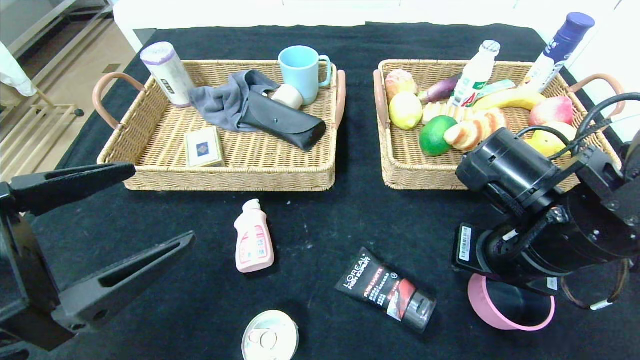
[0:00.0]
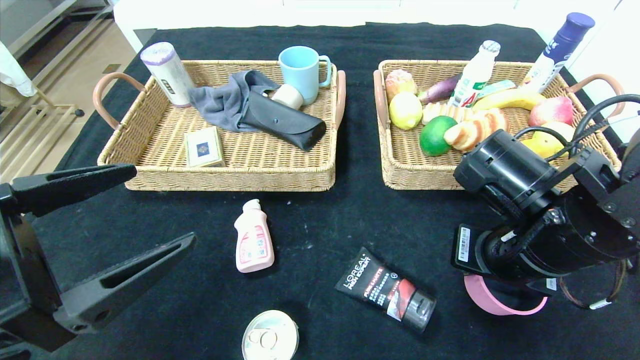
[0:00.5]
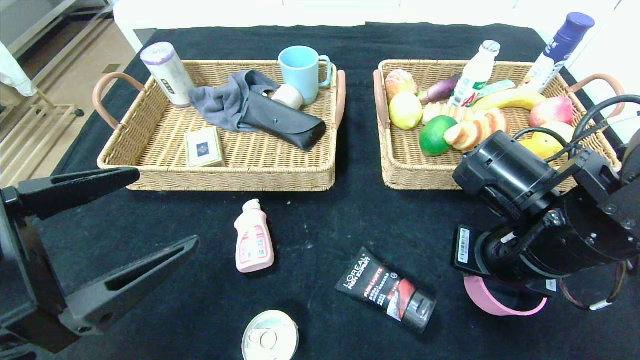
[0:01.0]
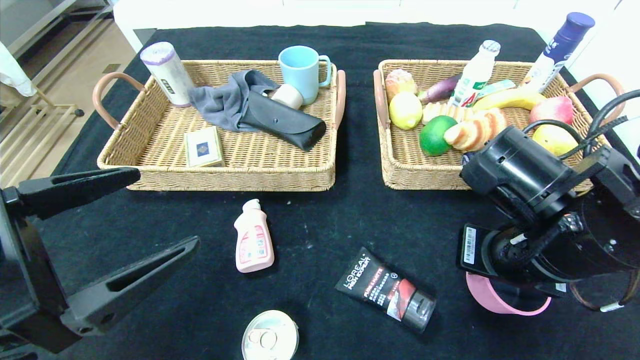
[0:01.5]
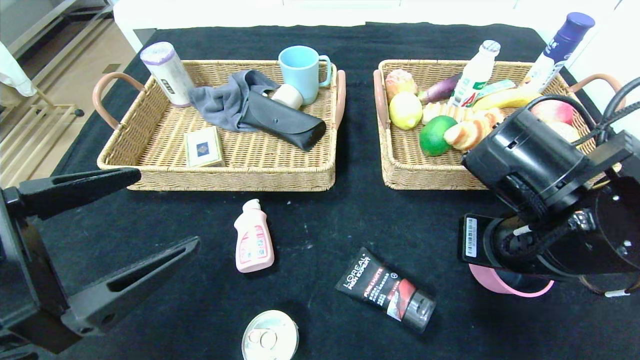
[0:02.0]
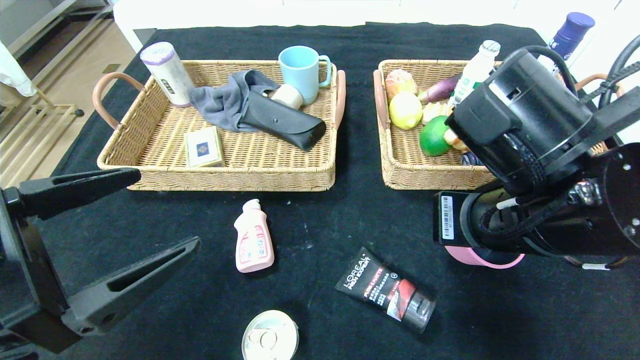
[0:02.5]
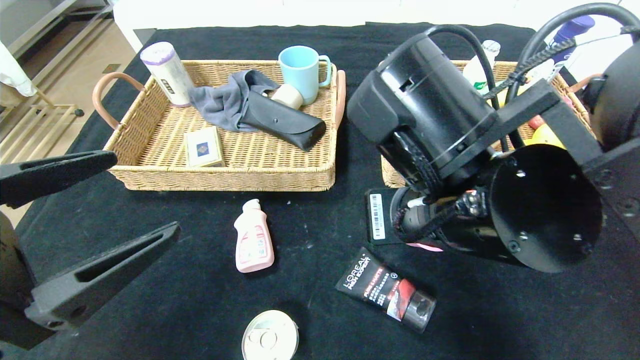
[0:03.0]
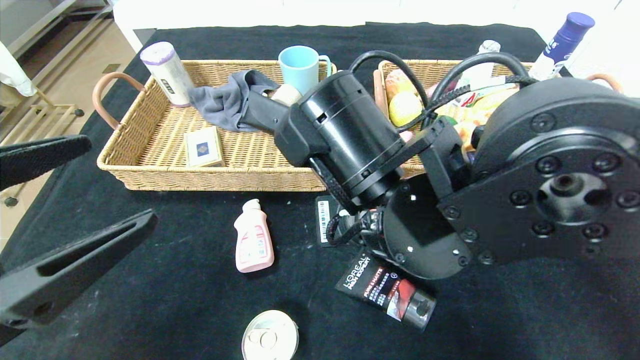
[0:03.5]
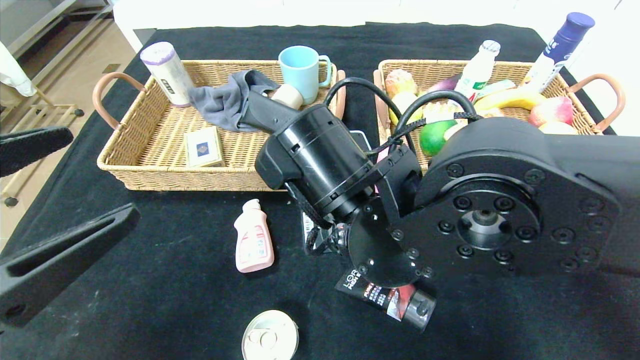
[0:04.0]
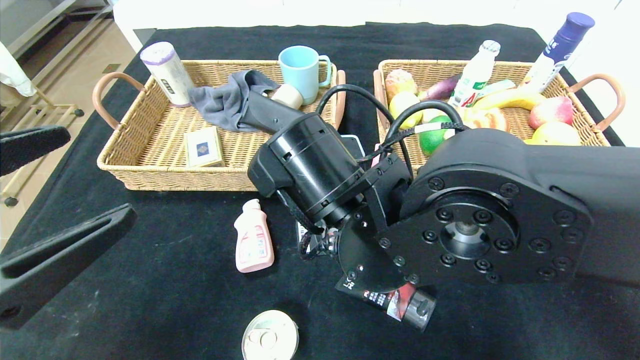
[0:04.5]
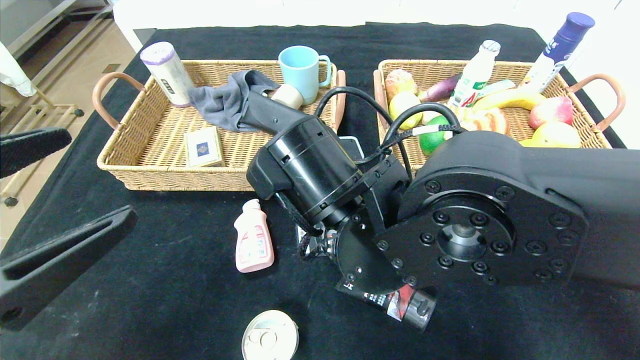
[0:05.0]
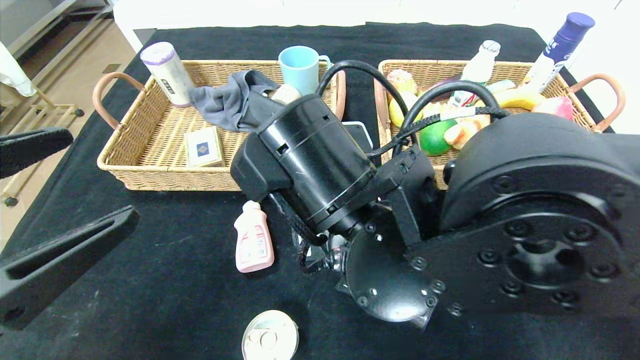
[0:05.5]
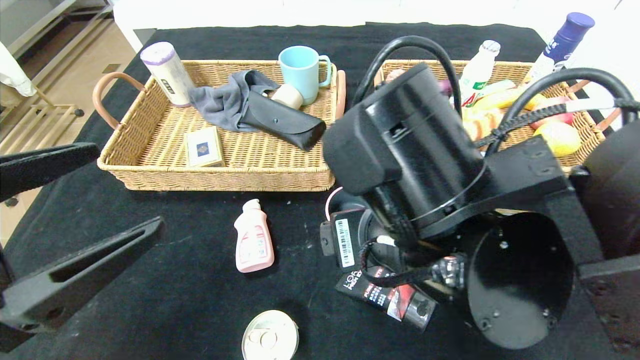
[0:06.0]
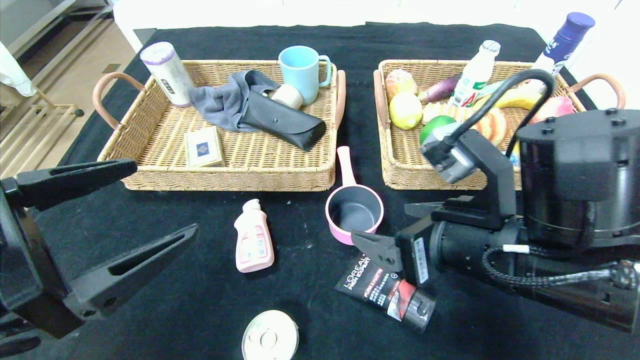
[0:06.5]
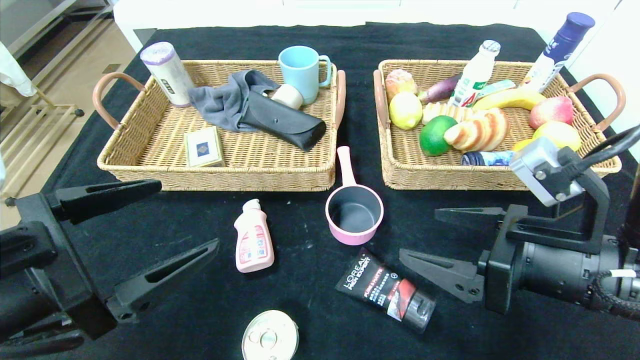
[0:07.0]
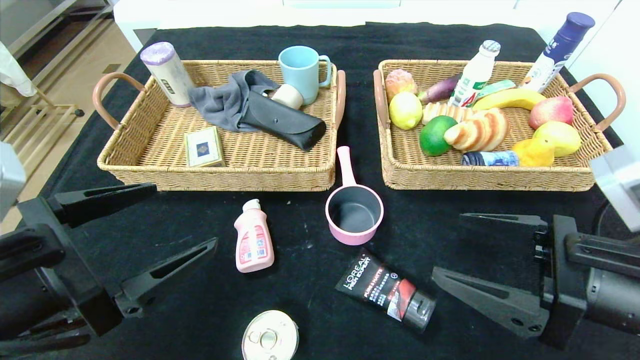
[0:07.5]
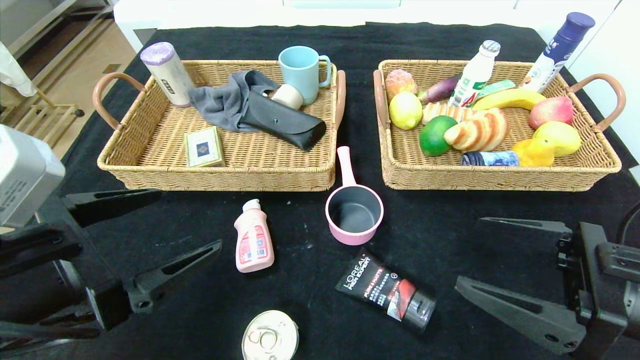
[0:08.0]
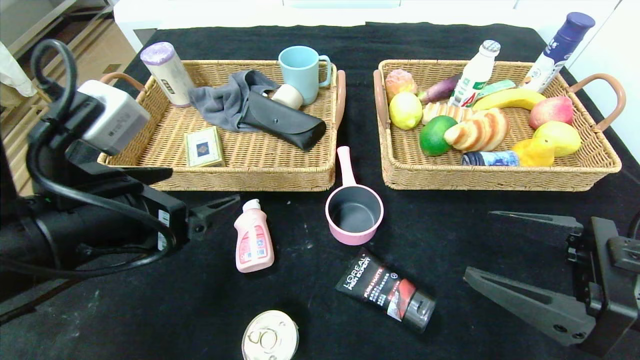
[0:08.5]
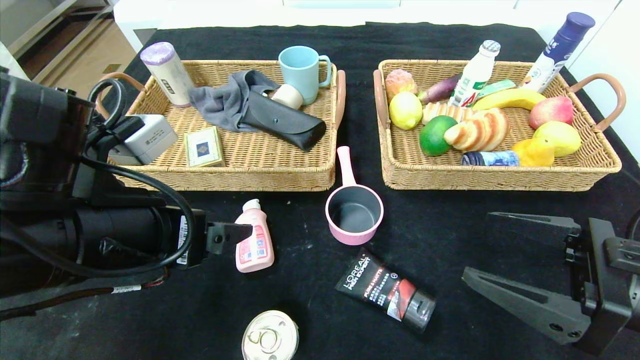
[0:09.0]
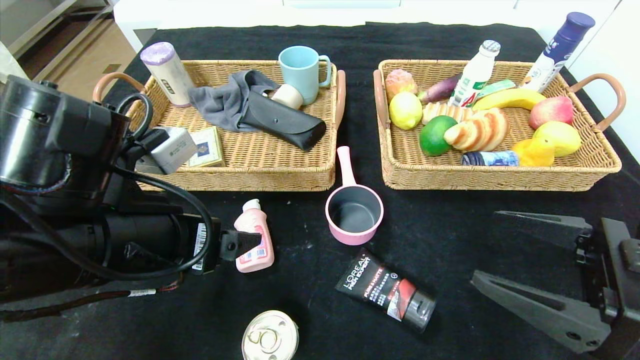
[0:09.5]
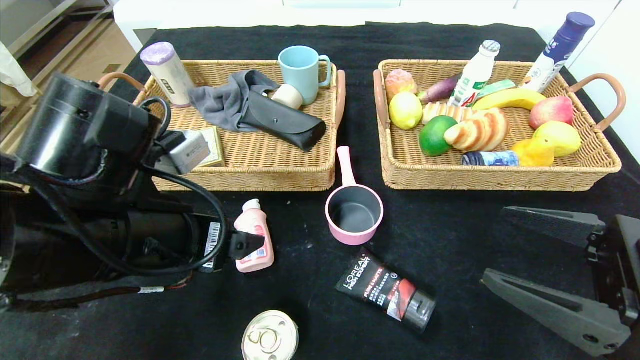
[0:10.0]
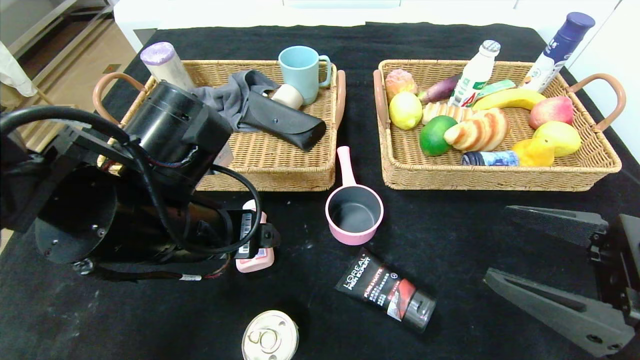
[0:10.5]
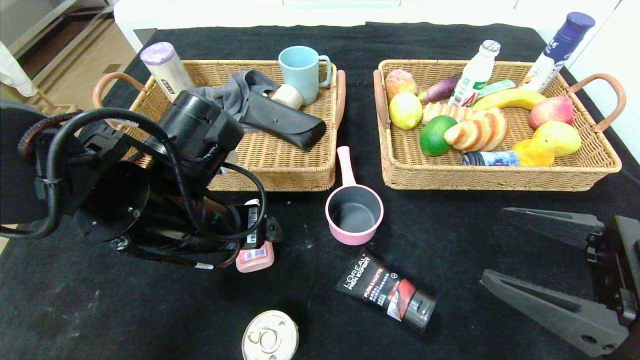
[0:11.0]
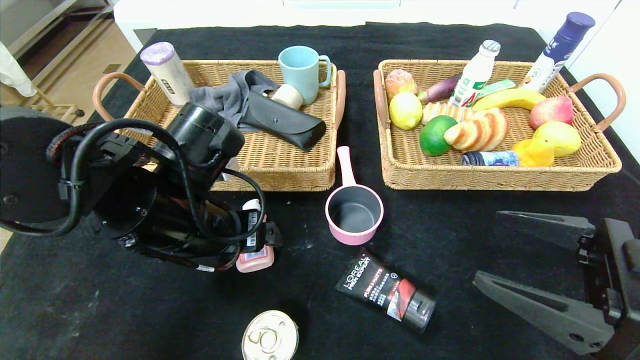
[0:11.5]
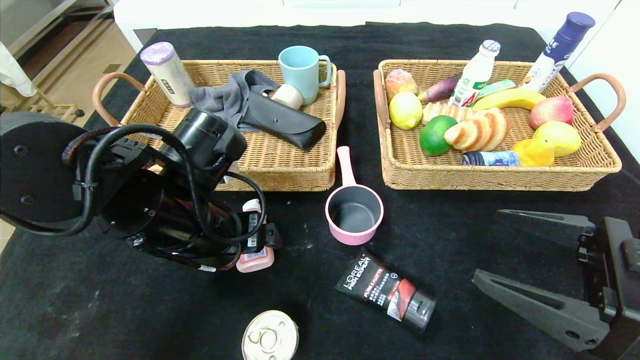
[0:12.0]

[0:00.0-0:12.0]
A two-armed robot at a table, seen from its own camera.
Step, 0:00.0 to 0:05.0: Place the pink pot in the center of the table.
0:00.0 to 0:02.0: The grippers make only small movements.
0:02.0 to 0:04.0: The right gripper shifts about 15 cm to the left.
0:04.0 to 0:06.0: The right gripper moves about 5 cm, and opens its fingers.
0:06.0 to 0:08.0: The right gripper shifts about 20 cm to the right.
0:08.0 to 0:10.0: The left gripper travels to the right and forward by about 10 cm.
0:10.0 to 0:12.0: The left gripper goes roughly 5 cm forward.

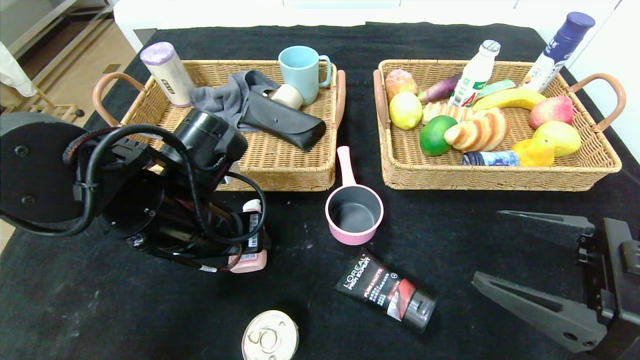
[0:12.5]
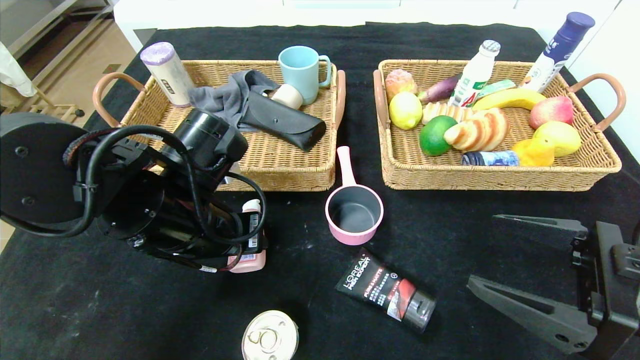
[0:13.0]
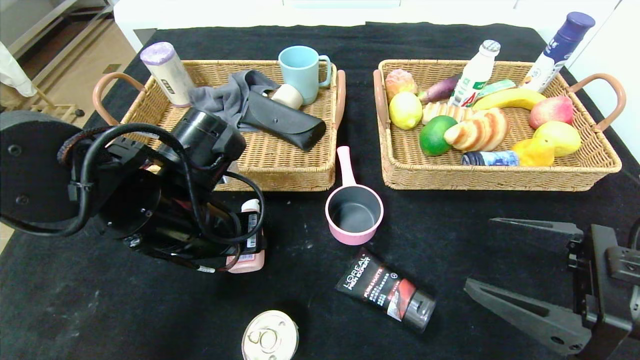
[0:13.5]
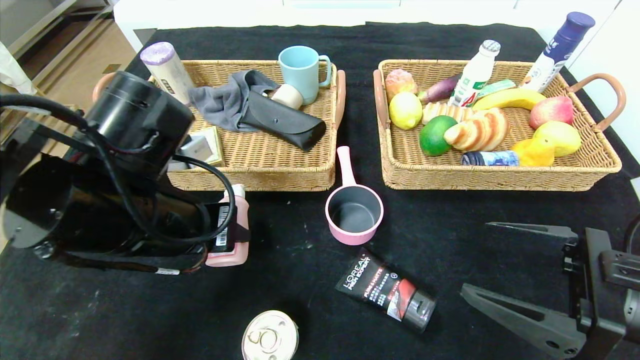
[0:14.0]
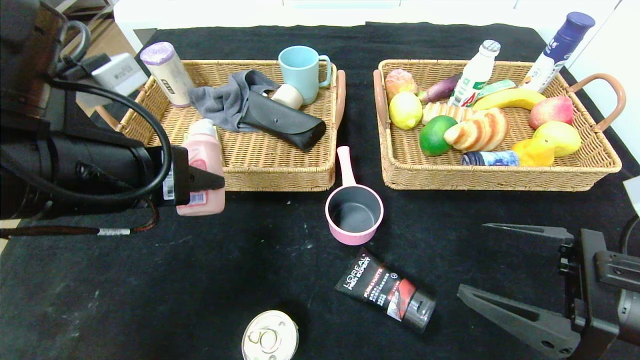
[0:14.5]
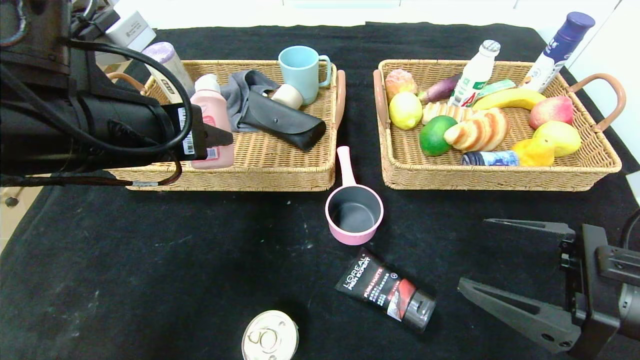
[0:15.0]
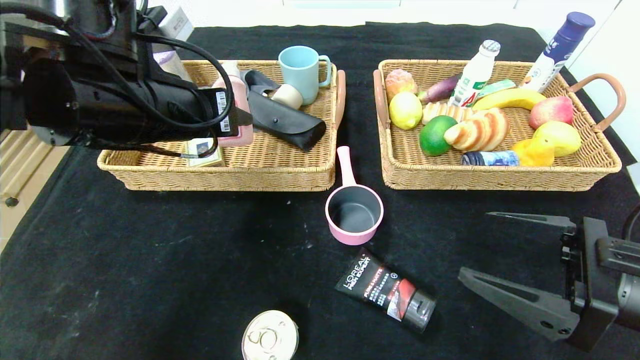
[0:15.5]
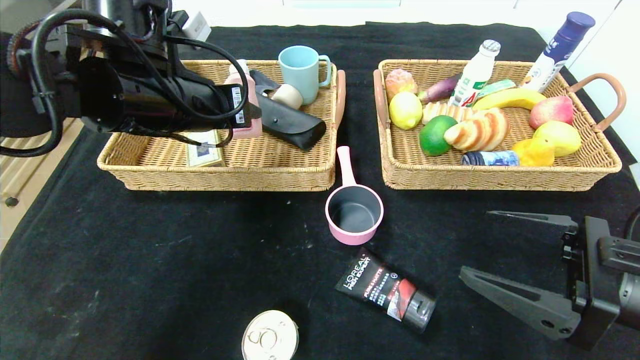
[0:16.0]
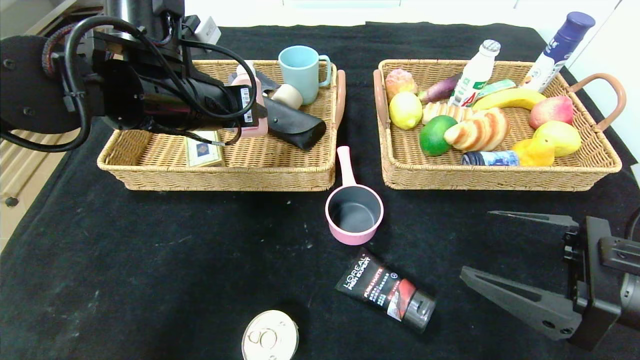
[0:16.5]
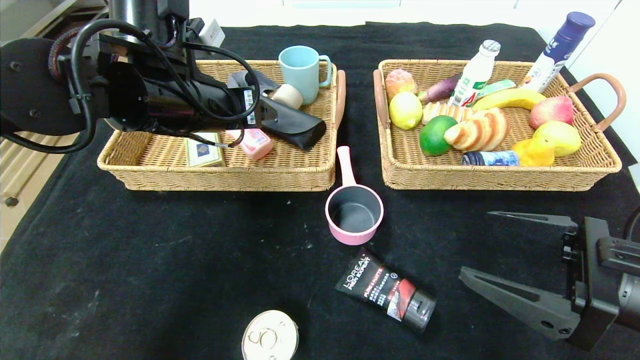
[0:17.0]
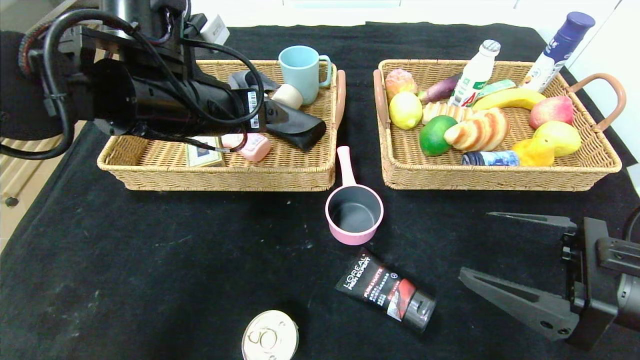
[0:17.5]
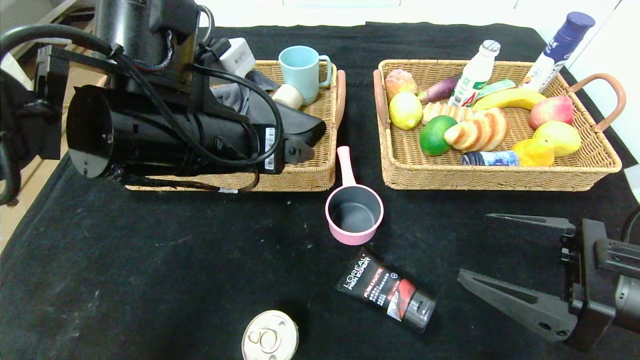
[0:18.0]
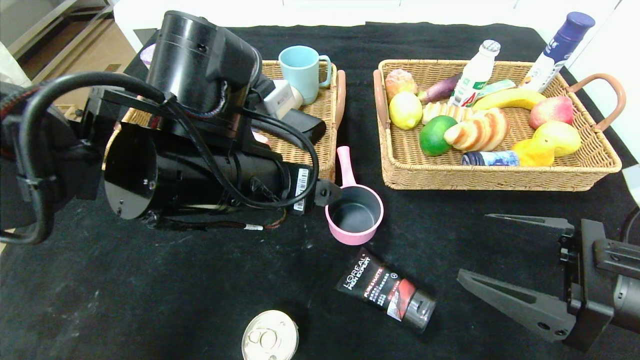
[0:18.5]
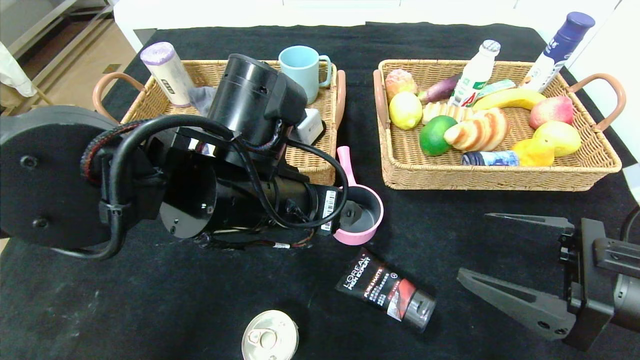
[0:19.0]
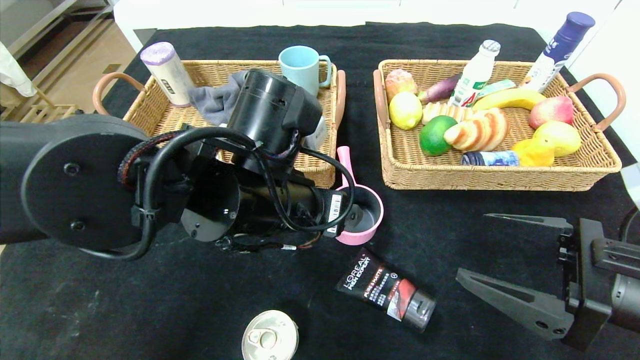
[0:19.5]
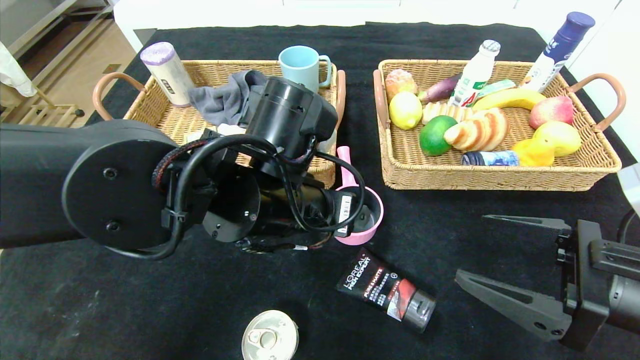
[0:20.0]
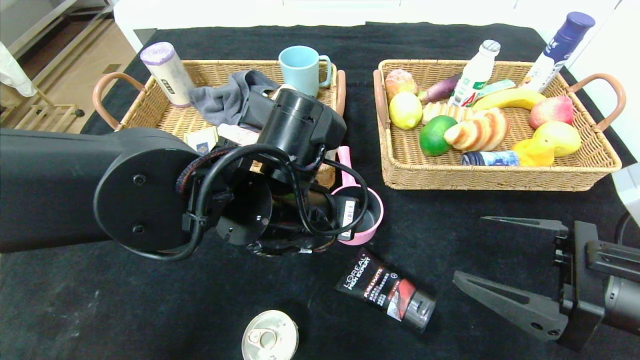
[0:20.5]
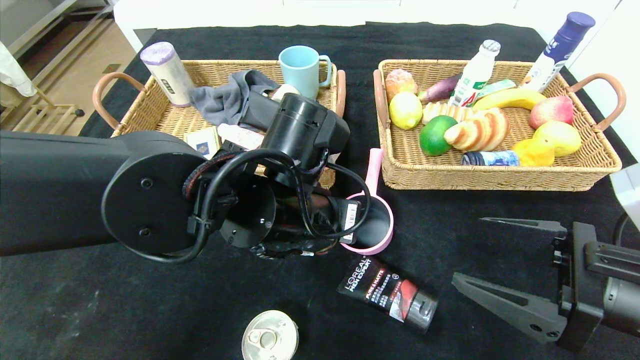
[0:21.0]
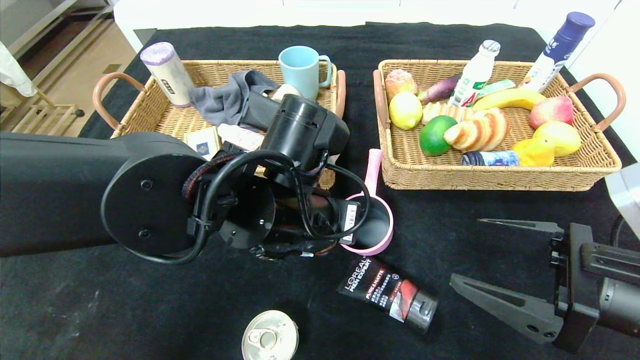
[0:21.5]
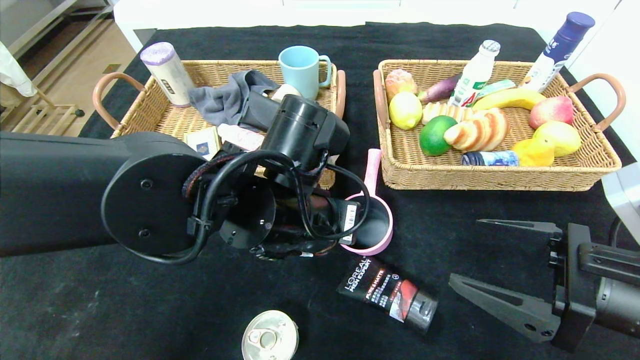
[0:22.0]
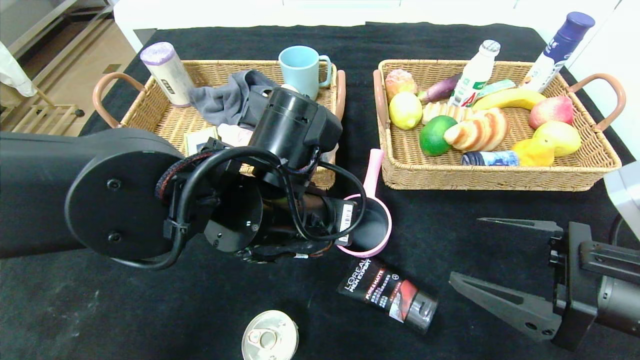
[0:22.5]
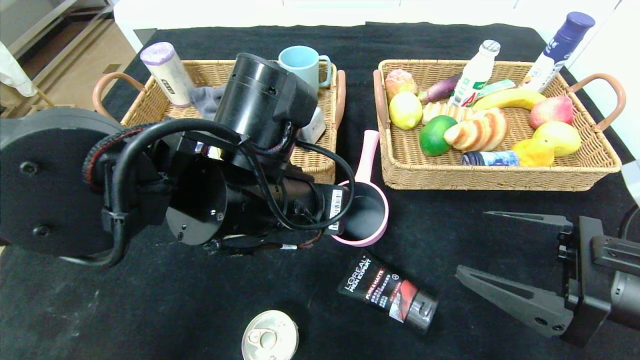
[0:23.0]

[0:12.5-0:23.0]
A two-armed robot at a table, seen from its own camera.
Step, 0:12.5 to 0:16.5: Grasp the detergent and put it in the left basket.
0:12.5 to 0:14.5: The left gripper heads upward and backward, covering approximately 10 cm.
0:14.5 to 0:16.5: The left gripper moves forward, approximately 15 cm.
0:16.5 to 0:19.0: The left gripper heads to the right, backward and downward, covering roughly 15 cm, and opens.
0:19.0 to 0:21.0: The left gripper closes up.
0:21.0 to 0:23.0: The grippers make only small movements.
